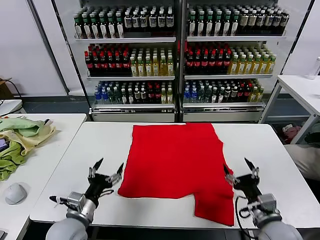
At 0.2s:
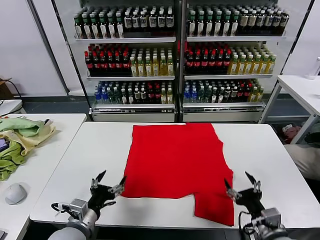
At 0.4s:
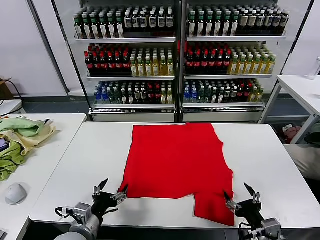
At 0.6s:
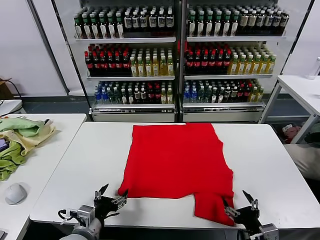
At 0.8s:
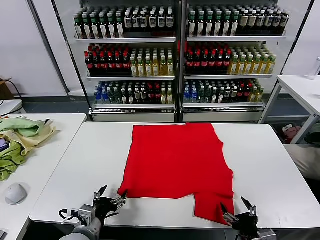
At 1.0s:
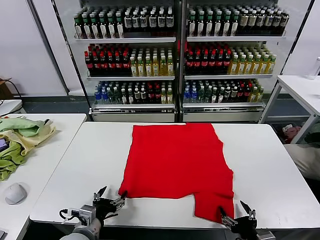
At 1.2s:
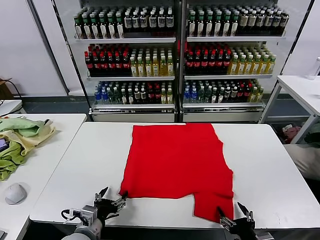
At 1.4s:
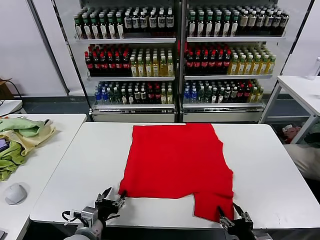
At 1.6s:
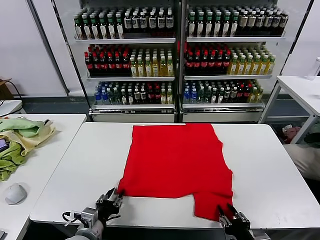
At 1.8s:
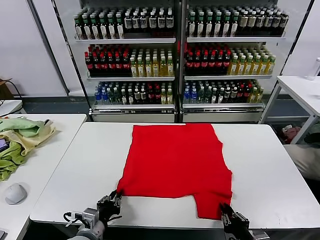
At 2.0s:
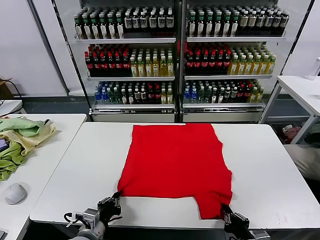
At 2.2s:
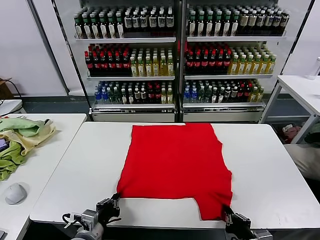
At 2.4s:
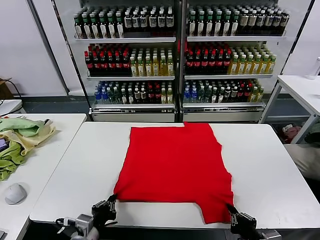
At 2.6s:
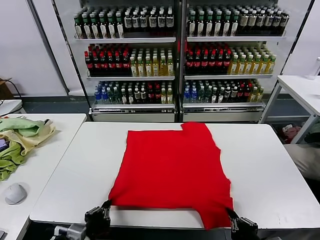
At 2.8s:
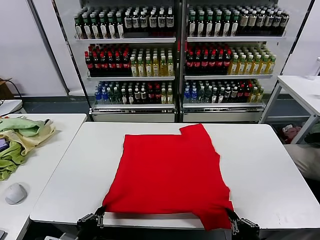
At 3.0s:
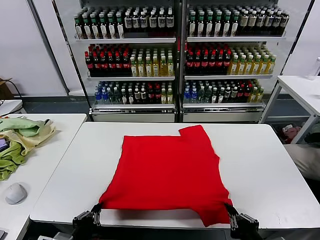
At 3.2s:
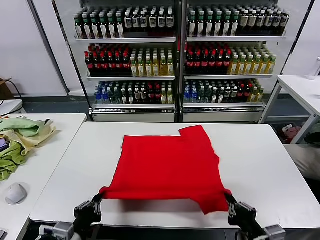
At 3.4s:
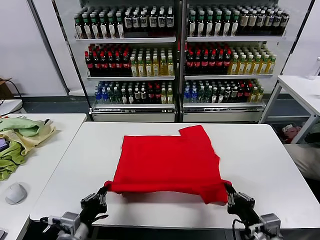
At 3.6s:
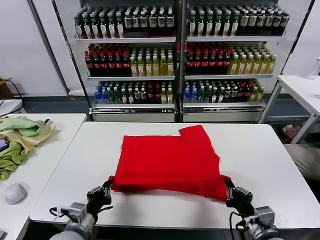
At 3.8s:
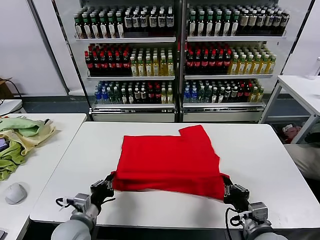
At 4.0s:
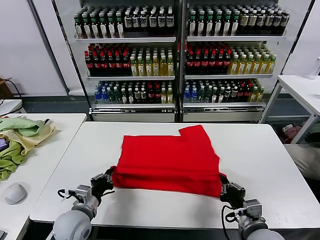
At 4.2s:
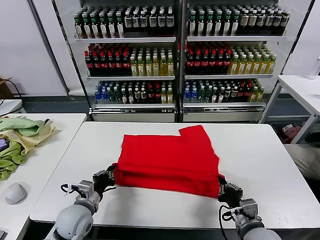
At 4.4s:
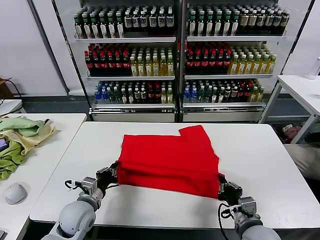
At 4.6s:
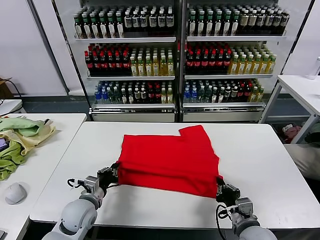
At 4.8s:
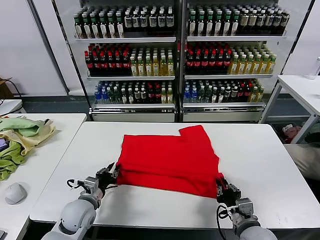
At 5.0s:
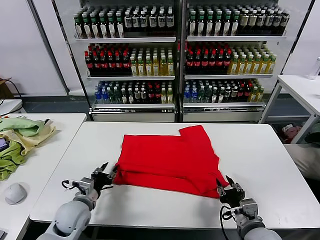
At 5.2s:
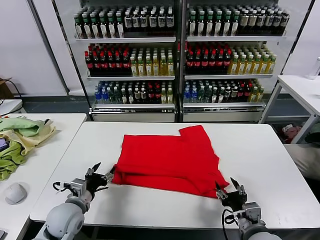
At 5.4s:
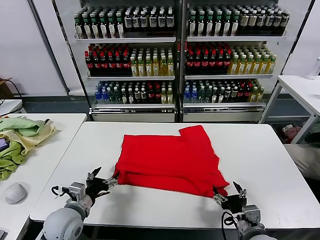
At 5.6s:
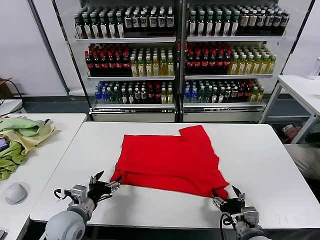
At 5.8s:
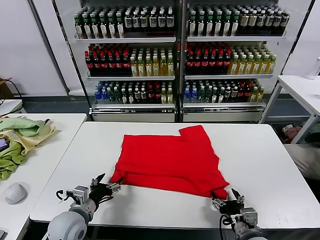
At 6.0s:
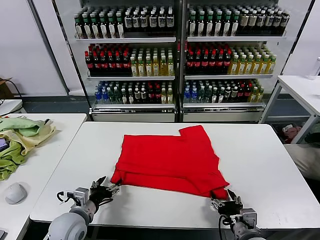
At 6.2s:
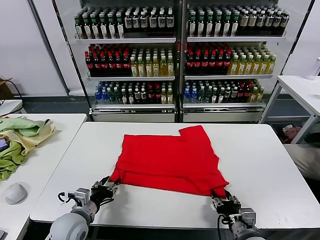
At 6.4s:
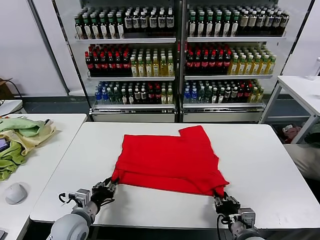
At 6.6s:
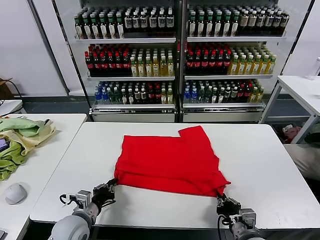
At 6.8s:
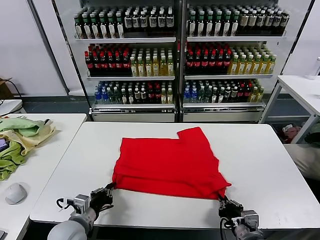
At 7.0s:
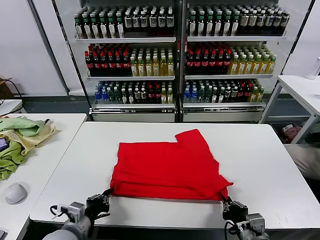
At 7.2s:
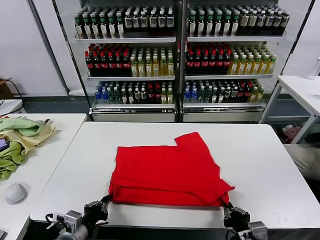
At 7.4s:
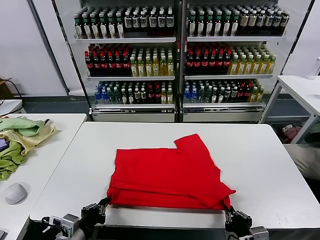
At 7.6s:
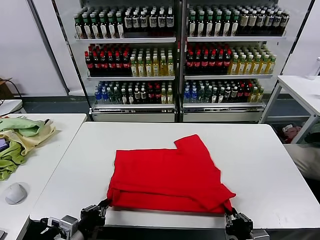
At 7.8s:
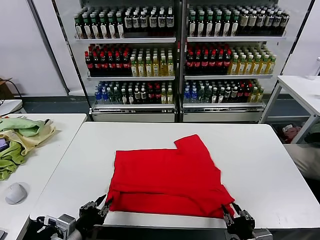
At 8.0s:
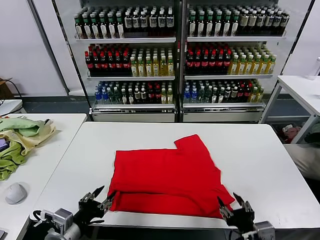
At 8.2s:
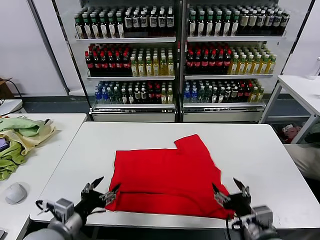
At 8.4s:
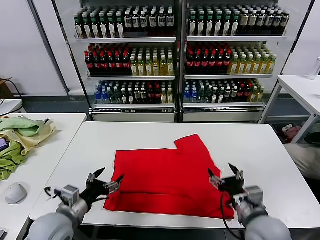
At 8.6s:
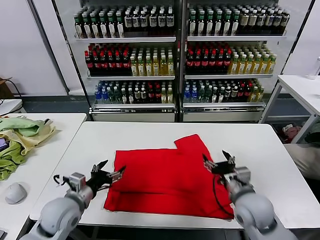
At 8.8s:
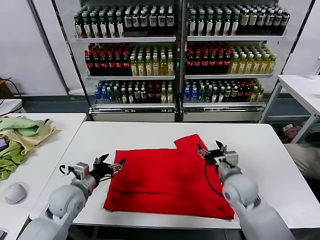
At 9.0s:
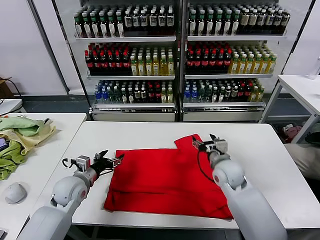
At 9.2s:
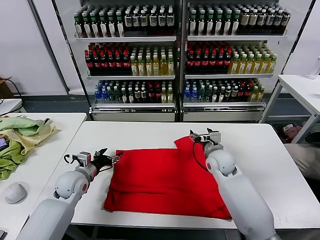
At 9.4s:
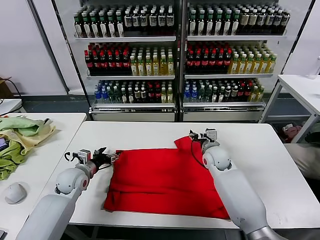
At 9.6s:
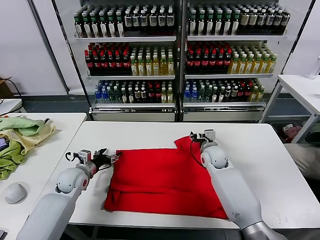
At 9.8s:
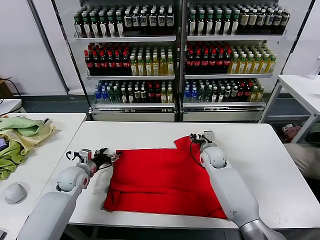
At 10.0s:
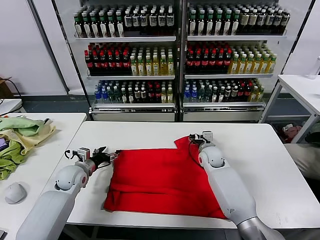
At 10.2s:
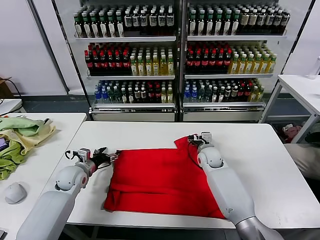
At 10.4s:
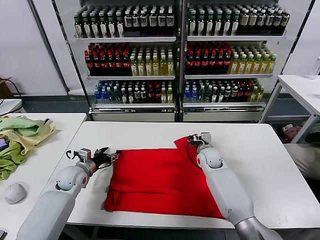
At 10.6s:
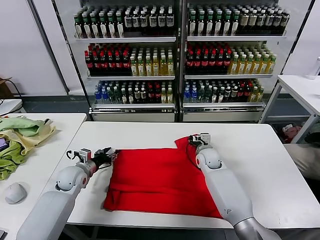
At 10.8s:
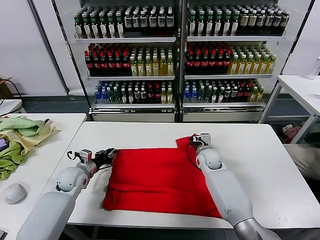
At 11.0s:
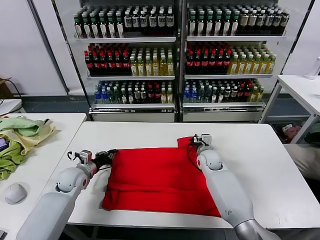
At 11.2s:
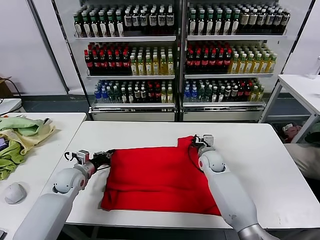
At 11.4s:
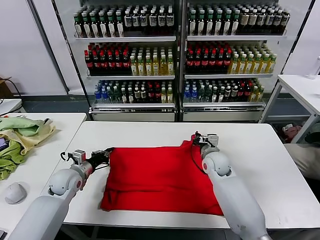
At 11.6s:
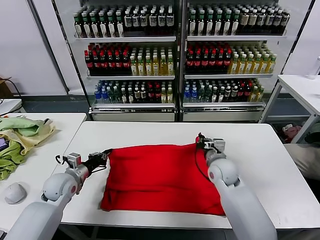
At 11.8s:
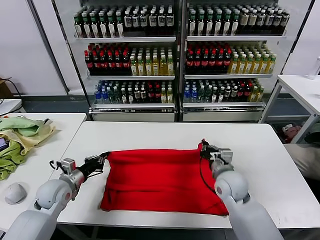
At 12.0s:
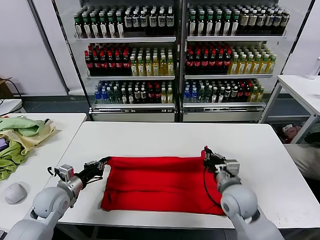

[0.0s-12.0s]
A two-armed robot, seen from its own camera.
Task of the whole recording: fold and organize the clothes.
Step, 0.0s to 2.0s: use both grippers simultaneously to clamp the lower edge of the clothing fabric.
Step, 2.2s to 4.8s: use both grippers to drag the lower edge of the fabric forward and fold it over the upper edge.
Step, 5.2s to 7.8s: Drag the clothes downward with both gripper.
Step, 8.0s to 11.0s: use both grippers simultaneously to clamp the upper edge of the clothing fabric.
1.6s to 3.0s: The left gripper shifts about 10 cm backward and upward, and closes, while the right gripper heads upward, covering some 10 cm.
3.0s to 4.4s: The left gripper heads forward, covering about 20 cm, while the right gripper heads forward and downward, covering approximately 10 cm.
4.4s to 6.0s: The left gripper opens, while the right gripper opens its fingers.
6.0s to 7.6s: Both grippers move backward, about 10 cm. The left gripper closes up; the right gripper closes up.
7.6s to 9.0s: The left gripper goes some 20 cm forward, and opens; the right gripper moves forward, about 30 cm, and opens.
9.0s to 10.4s: The left gripper goes about 5 cm forward. Meanwhile the right gripper is displaced forward and downward by about 10 cm.
10.4s to 12.0s: The right gripper goes roughly 20 cm backward, and closes, while the left gripper is displaced backward by approximately 10 cm, and closes its fingers.

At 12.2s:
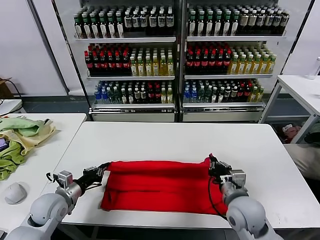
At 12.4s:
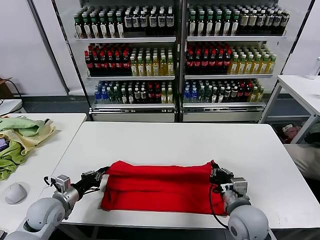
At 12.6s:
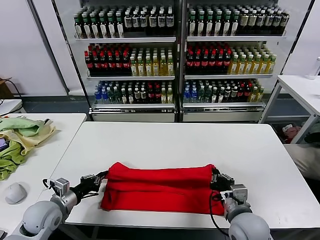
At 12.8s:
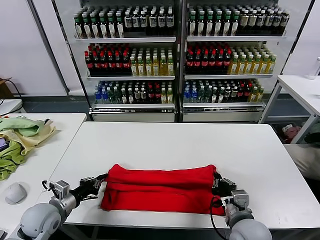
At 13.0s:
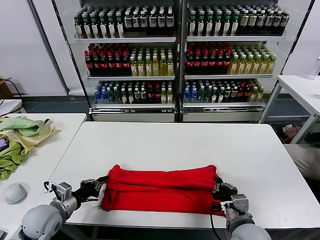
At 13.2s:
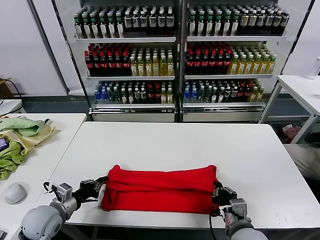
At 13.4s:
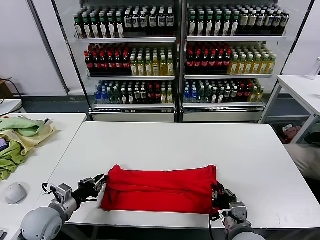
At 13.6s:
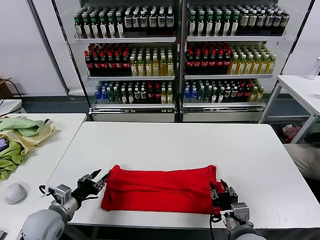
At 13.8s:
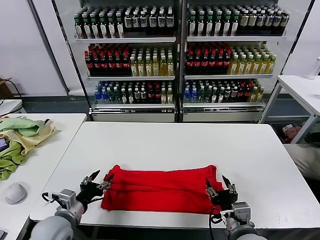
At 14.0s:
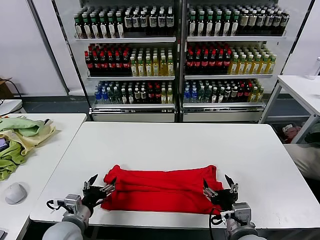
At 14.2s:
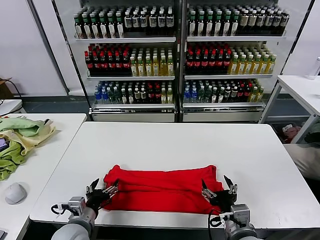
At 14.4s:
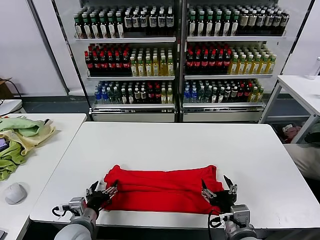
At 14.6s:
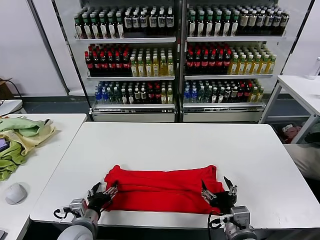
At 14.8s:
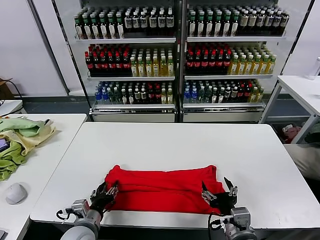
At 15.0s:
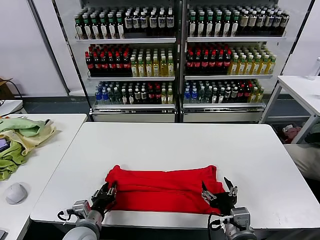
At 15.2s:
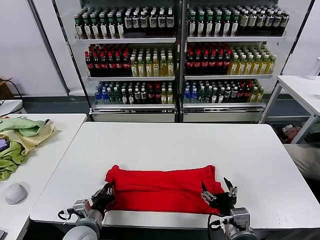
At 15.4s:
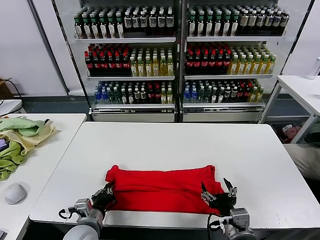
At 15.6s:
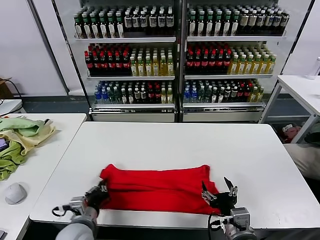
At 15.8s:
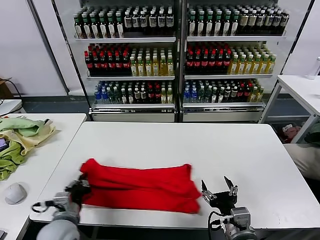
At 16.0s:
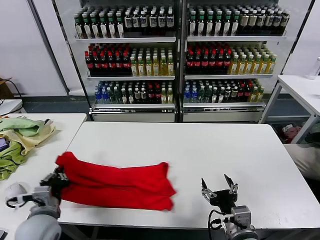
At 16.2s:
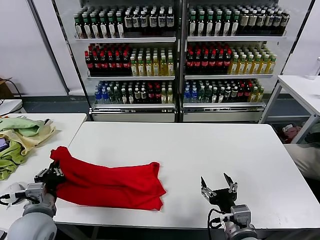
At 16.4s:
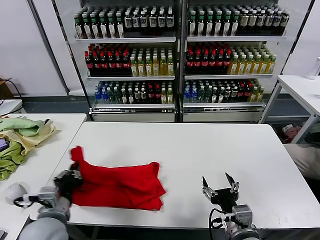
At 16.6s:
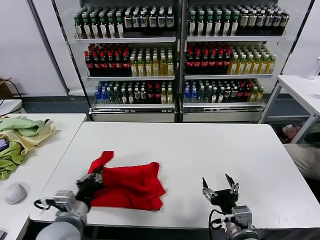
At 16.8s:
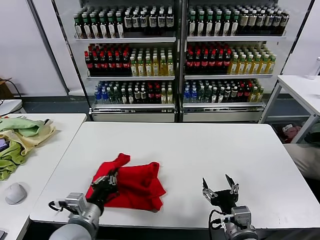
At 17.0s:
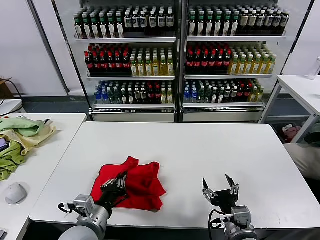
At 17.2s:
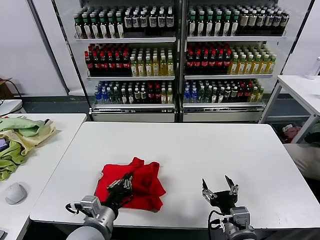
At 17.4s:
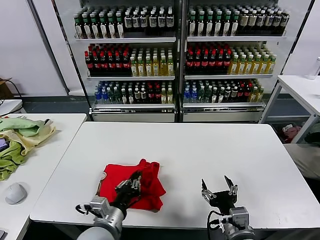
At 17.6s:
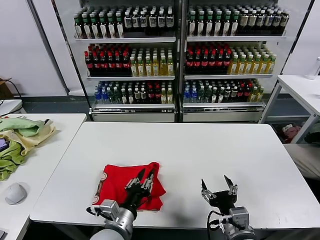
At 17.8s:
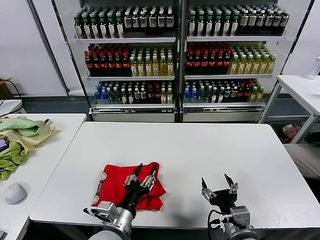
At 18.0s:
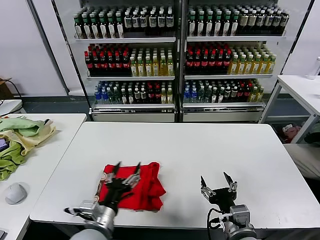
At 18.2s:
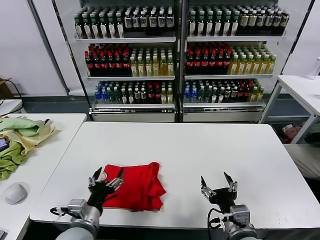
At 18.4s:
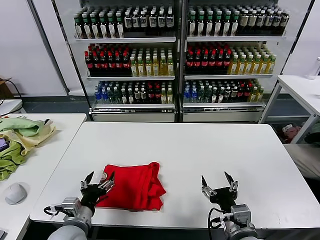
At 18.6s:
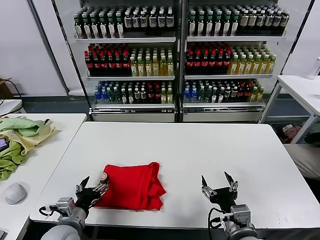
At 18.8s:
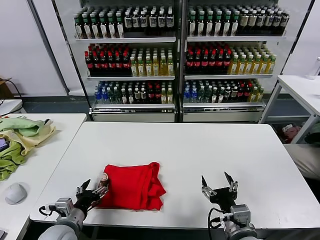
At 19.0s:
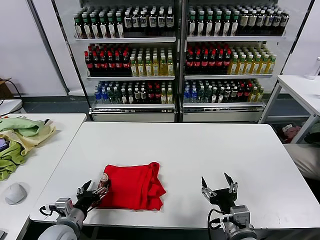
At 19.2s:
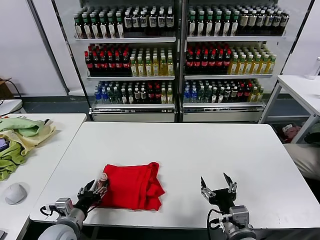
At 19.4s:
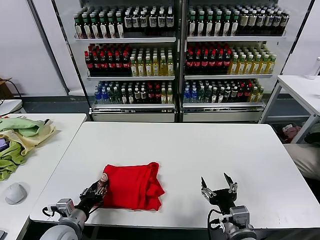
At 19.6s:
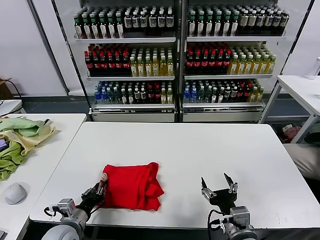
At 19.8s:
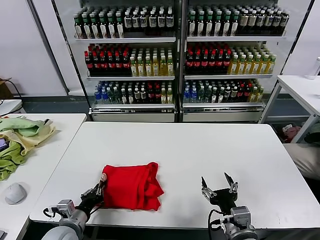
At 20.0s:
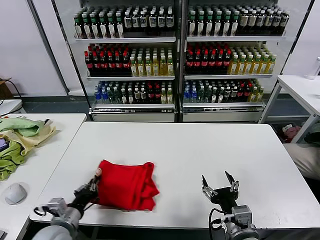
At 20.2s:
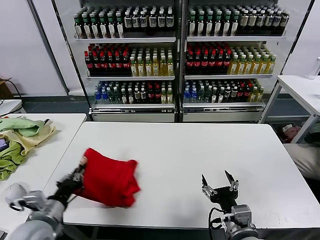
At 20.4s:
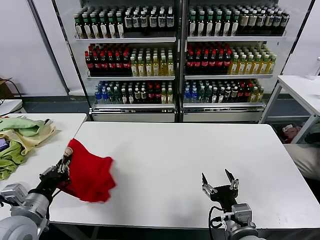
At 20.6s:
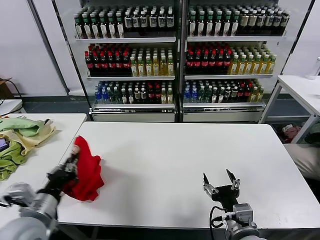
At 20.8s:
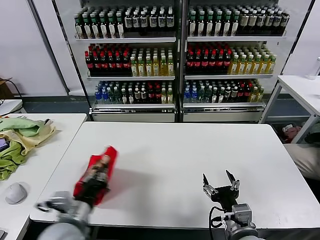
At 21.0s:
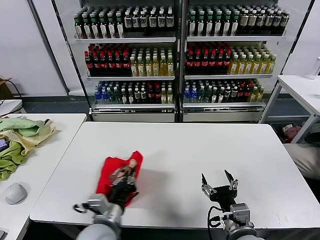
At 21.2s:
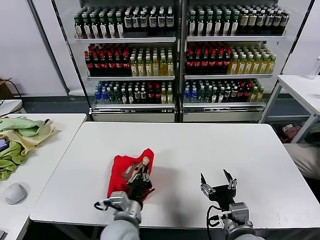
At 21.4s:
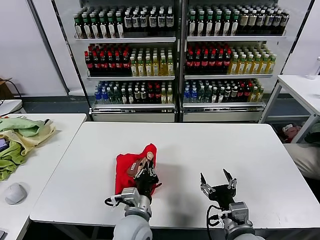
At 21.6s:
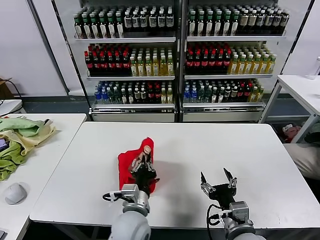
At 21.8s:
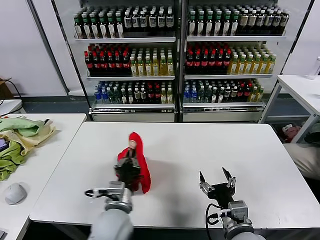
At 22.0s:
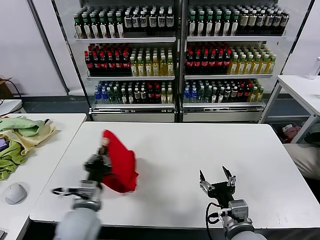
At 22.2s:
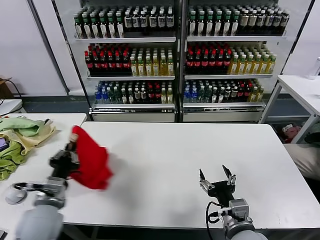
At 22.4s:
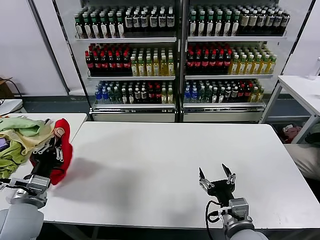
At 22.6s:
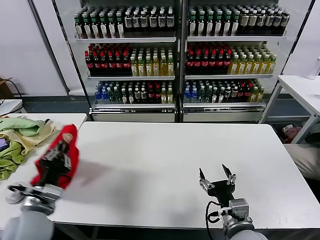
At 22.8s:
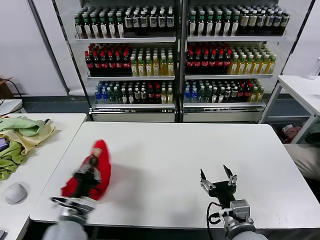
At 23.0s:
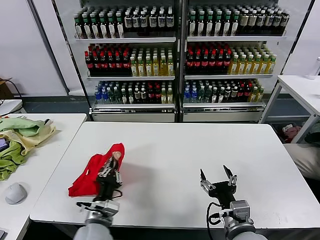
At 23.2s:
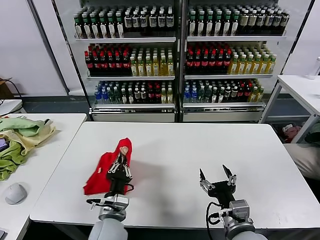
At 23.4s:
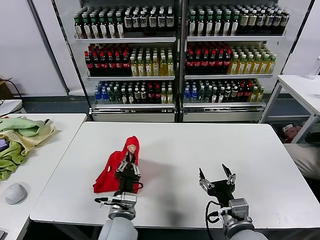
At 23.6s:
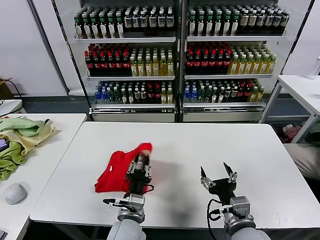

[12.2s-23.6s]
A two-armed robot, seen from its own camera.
Task of the whole recording: fold and organize the clothes.
Step, 12.2s to 13.6s: use both grippers to drag the upper edge of the fabric backward and fold it over the lower edge.
Step, 13.8s to 15.4s: use the left gripper to clamp the left edge of the fabric.
Step, 15.6s to 17.6s: use the left gripper to drag the left edge of the fabric to the left and folds it over the right edge.
12.2s to 13.6s: Both grippers move backward, about 5 cm. The right gripper opens up; the left gripper opens up.
13.6s to 15.0s: The right gripper opens up. Meanwhile the left gripper moves to the right, approximately 10 cm, and opens, then closes again.
15.0s to 16.4s: The left gripper goes roughly 10 cm upward, and closes.
16.4s to 17.8s: The left gripper heads to the right, covering about 15 cm, and opens up.
17.8s to 19.4s: The left gripper heads to the left, covering about 15 cm, and opens, then closes once more.
19.4s to 20.8s: The left gripper travels upward by approximately 10 cm, and closes its fingers.
20.8s to 22.2s: The left gripper goes to the right and returns, approximately 20 cm each way.
22.2s to 23.6s: The left gripper heads to the right, covering about 20 cm.
